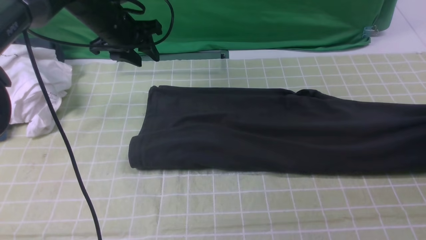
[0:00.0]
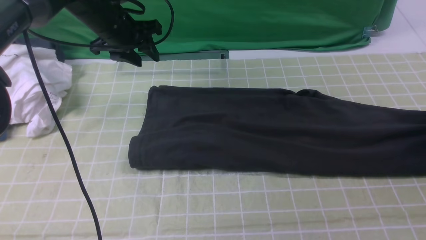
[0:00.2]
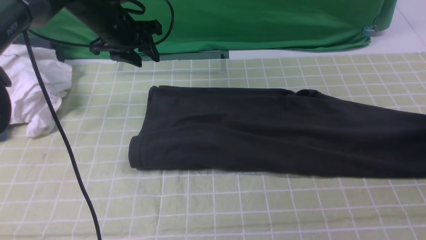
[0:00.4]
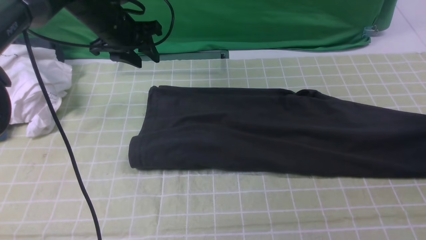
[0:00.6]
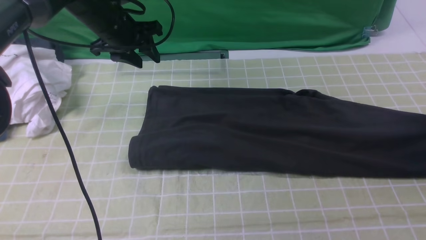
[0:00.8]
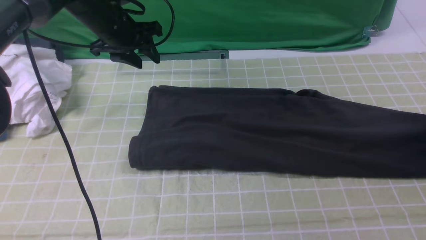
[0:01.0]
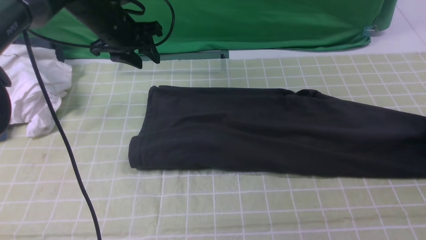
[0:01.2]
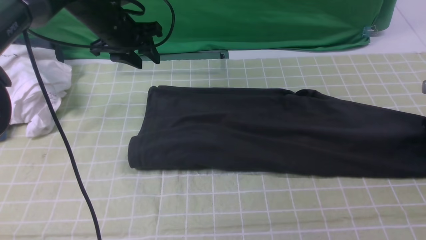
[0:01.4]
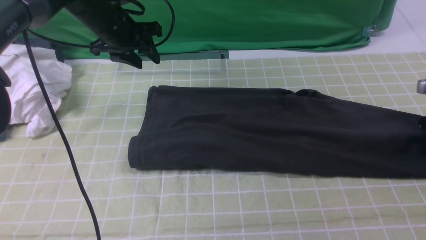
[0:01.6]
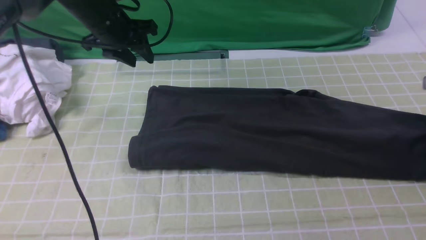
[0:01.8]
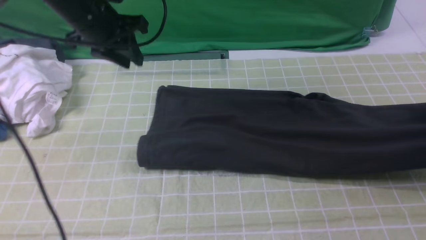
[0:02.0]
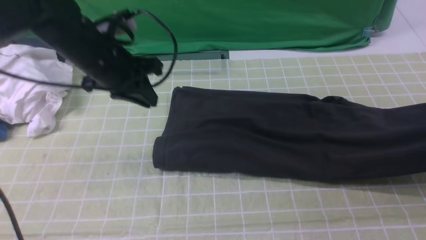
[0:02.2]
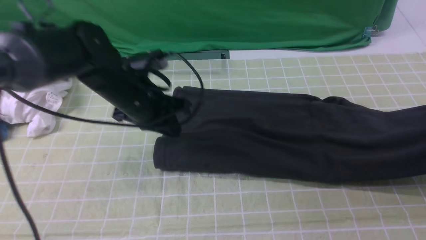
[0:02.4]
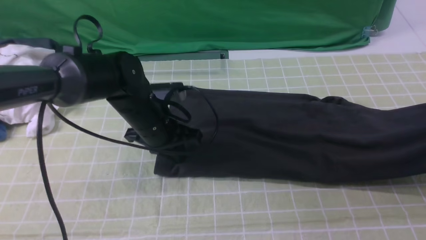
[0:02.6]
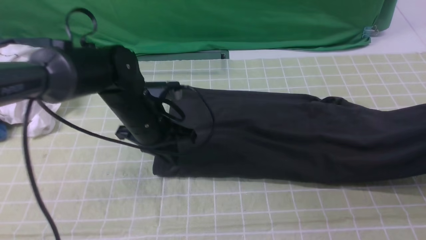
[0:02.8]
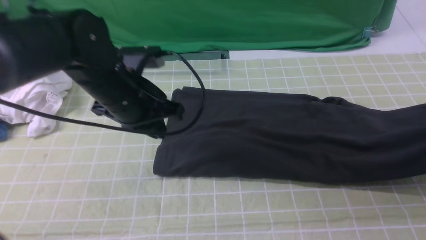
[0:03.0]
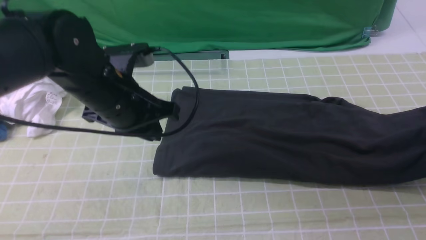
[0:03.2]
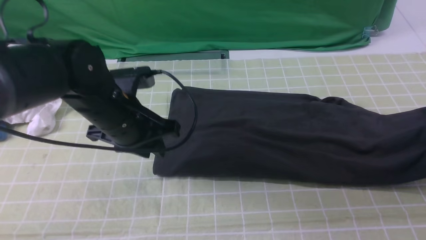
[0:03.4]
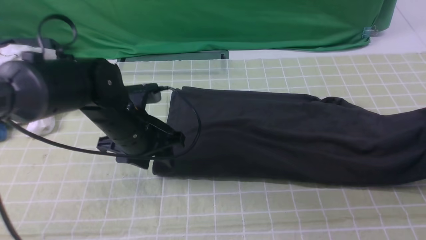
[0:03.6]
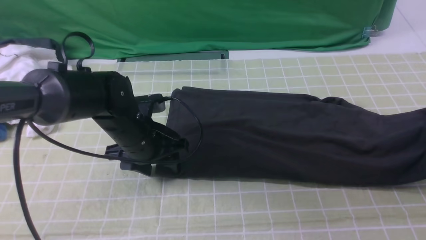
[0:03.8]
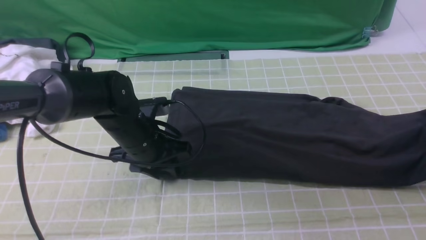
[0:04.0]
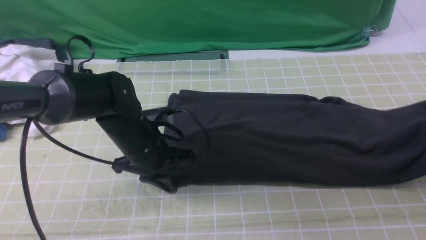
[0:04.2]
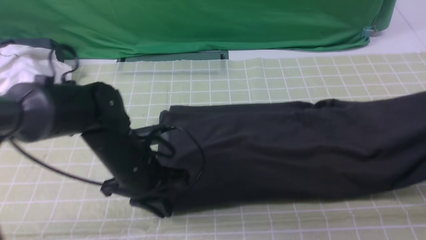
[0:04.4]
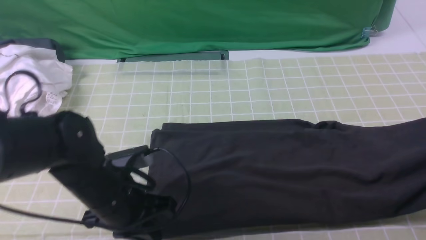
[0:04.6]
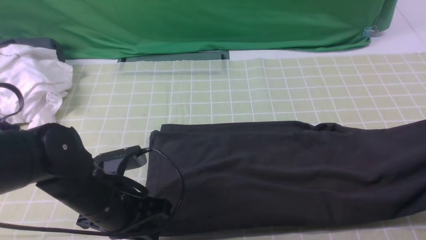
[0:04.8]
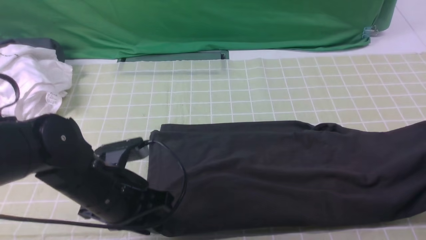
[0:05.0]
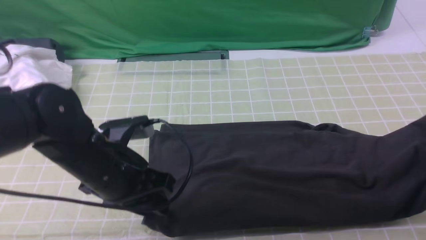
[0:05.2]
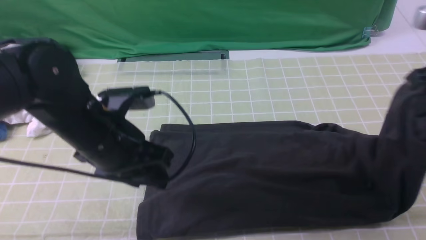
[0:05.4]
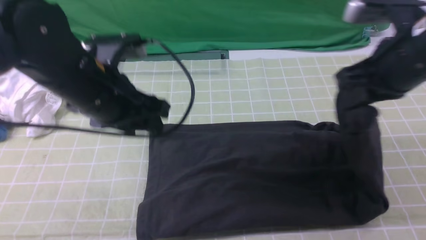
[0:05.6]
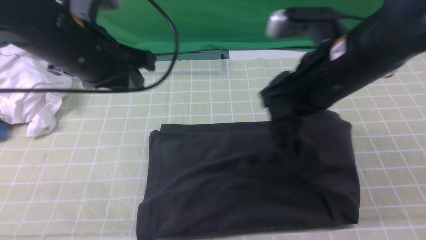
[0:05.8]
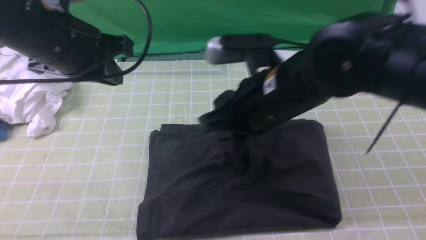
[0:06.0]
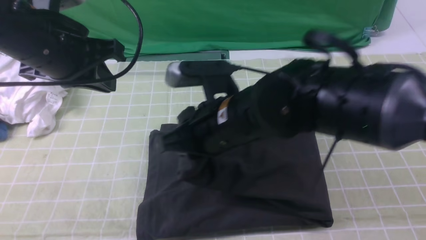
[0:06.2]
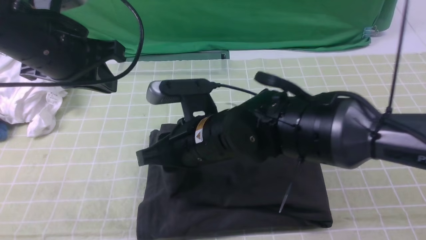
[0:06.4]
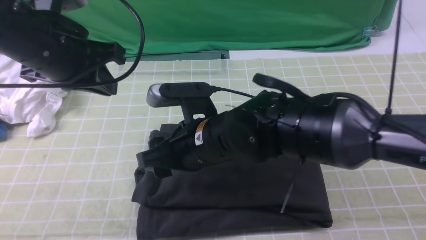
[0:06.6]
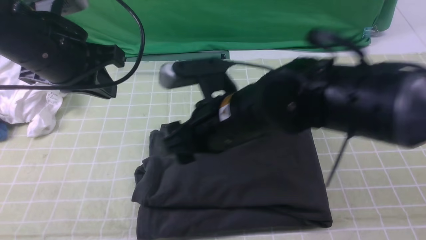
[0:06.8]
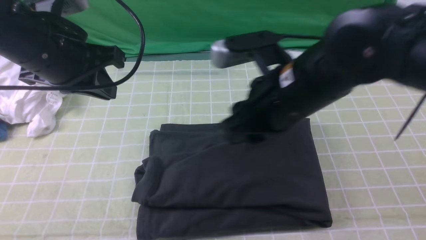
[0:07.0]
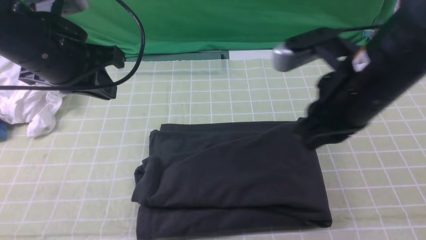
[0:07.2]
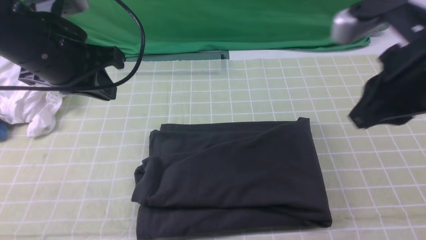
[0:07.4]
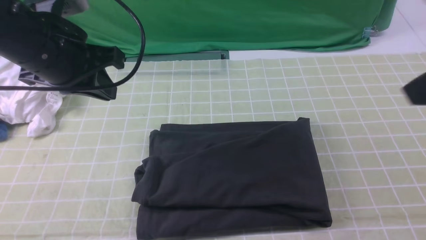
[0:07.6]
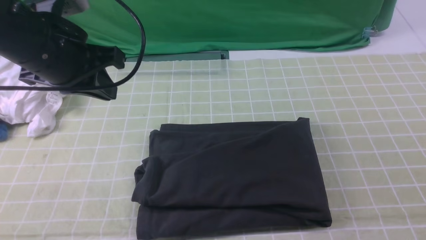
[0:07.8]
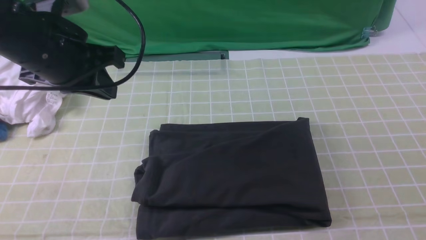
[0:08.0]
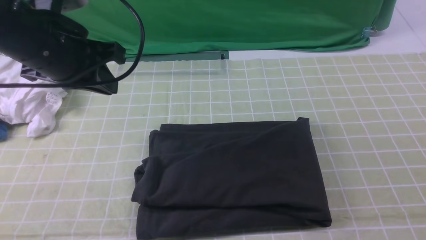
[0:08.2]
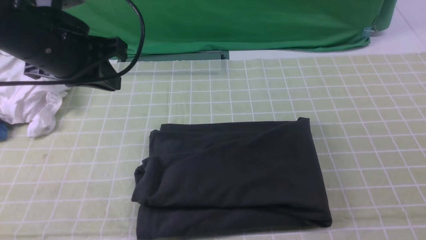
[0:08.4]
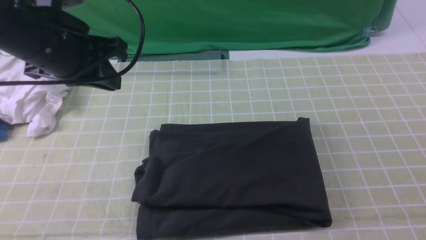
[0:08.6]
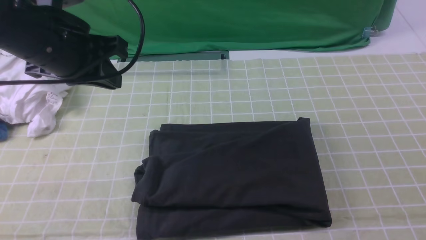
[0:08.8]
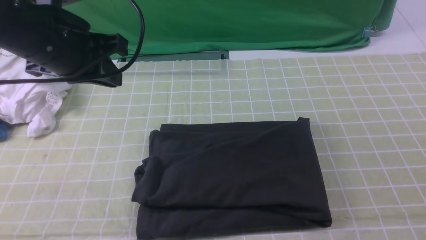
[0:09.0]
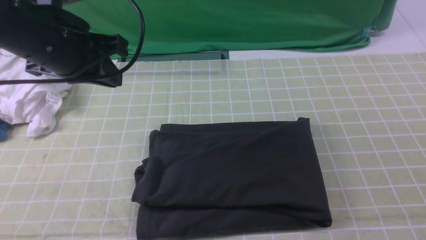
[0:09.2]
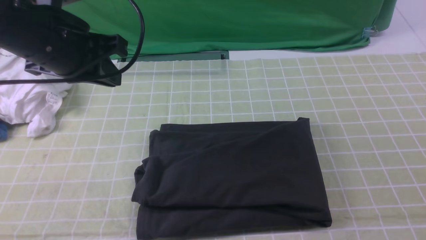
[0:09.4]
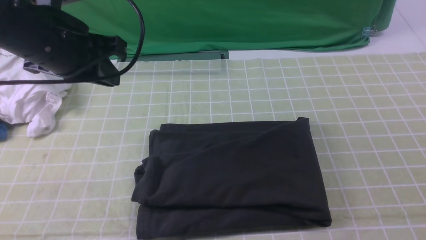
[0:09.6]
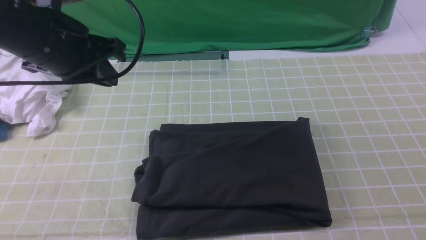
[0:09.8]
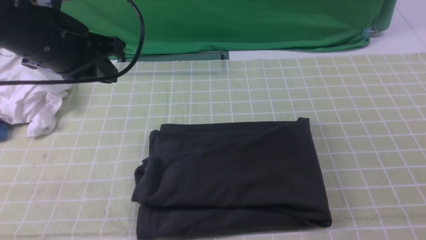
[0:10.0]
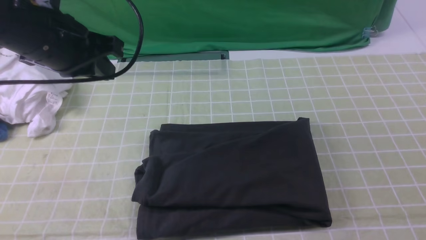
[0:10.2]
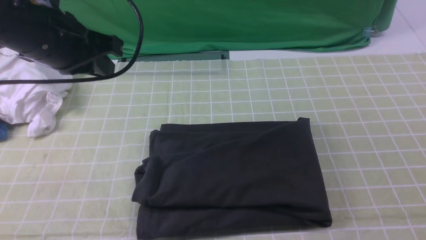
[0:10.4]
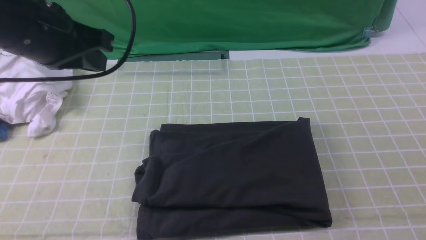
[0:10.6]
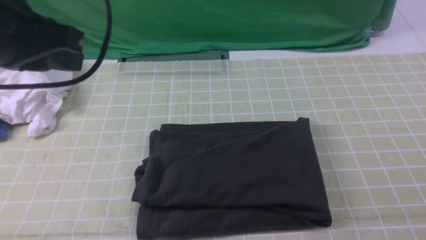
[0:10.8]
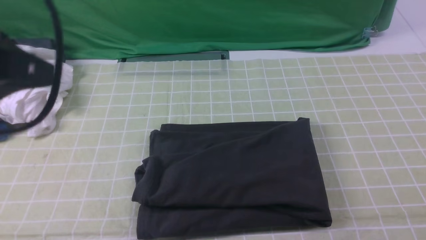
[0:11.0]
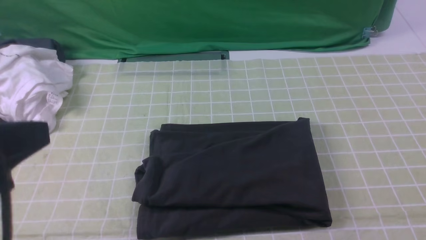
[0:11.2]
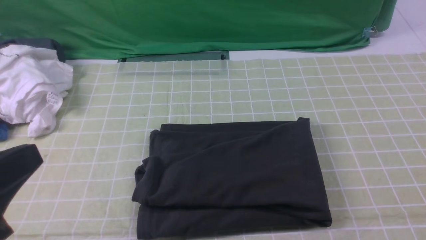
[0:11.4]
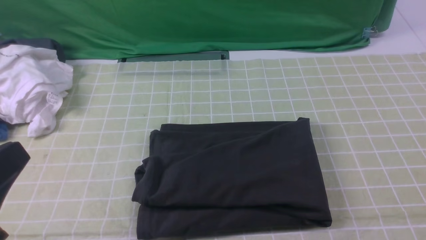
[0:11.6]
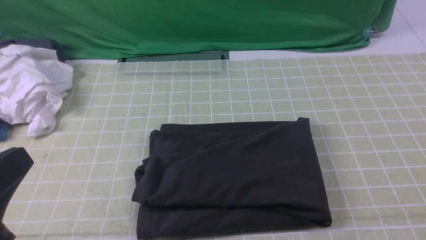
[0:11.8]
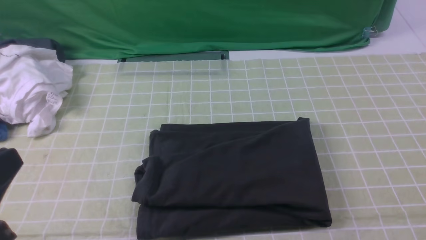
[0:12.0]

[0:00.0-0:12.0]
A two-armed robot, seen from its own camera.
Step, 1.8 to 6.6 s: use the right arm to drag the right edge of the fabric to the left and folds it over the left edge.
0.0 to 1.6 s: The right gripper shifts roughly 5 cm downward, and opens and closes again.
1.6 to 3.0 s: The left gripper is displaced backward and to the right by approximately 15 cm, and closes its fingers, while the right gripper goes approximately 10 cm upward.
3.0 to 4.4 s: The left gripper goes about 10 cm downward and backward, and opens, then closes again. The right gripper shifts by some 5 cm.
4.4 to 6.0 s: The right gripper moves to the left, roughly 35 cm, while the left gripper shifts approximately 20 cm upward, and opens, then closes once more.
6.0 to 7.6 s: The right gripper is displaced to the right, upward and backward by approximately 25 cm, and opens, then closes once more.
10.4 to 12.0 s: The left gripper goes some 25 cm backward.

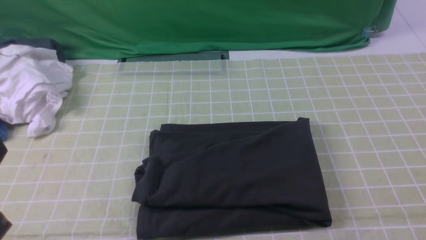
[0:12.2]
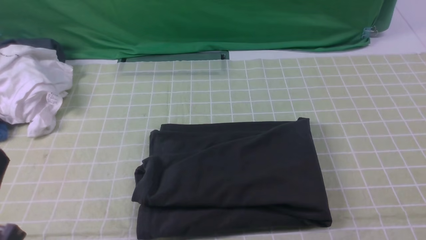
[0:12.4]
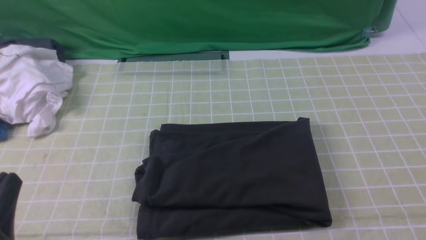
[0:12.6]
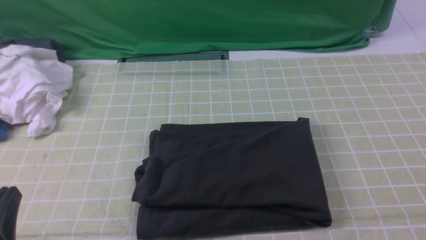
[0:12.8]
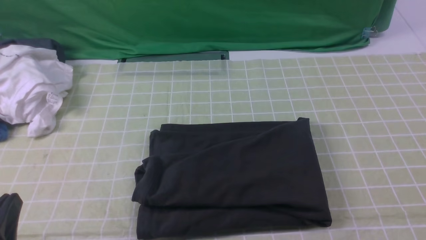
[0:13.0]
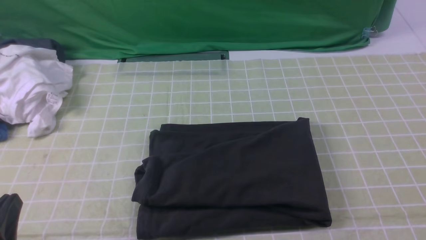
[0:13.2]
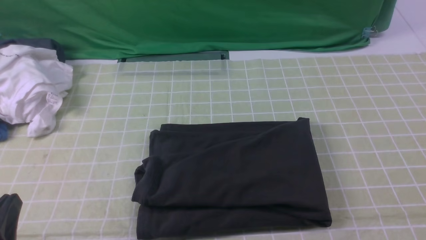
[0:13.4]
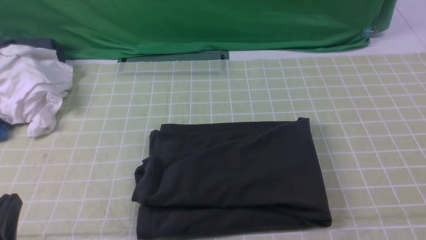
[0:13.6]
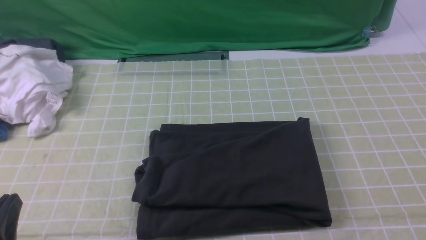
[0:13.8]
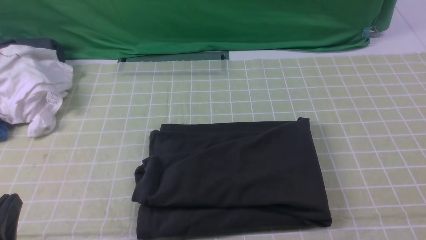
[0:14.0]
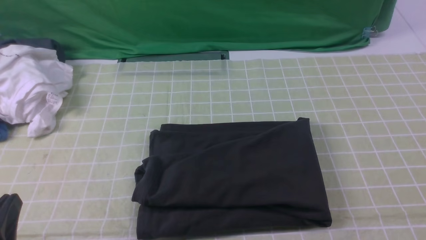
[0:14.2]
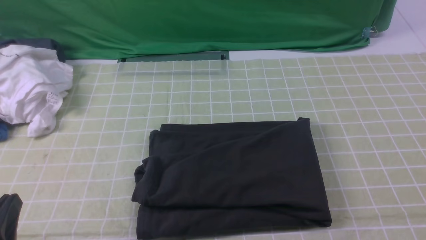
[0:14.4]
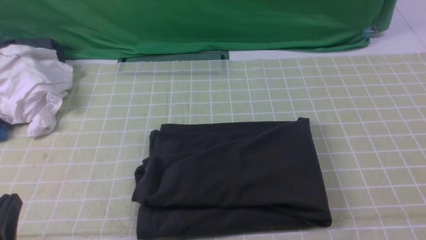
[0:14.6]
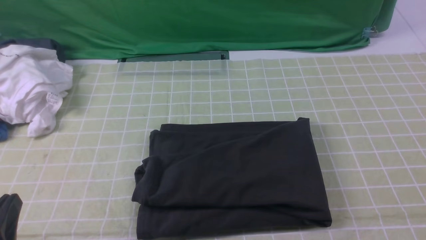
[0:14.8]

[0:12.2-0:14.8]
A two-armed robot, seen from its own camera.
12.2 to 13.4 s: The left gripper moves downward, about 10 cm.
13.4 to 14.8 s: Both grippers stay about where they are.

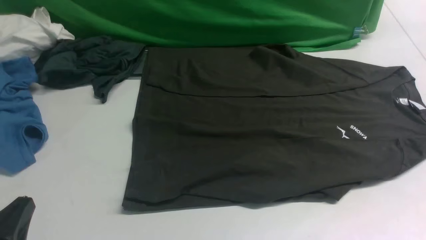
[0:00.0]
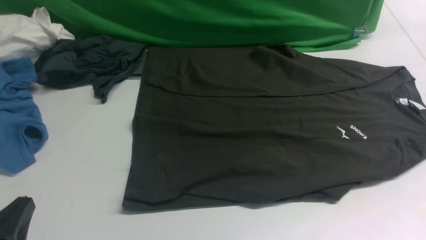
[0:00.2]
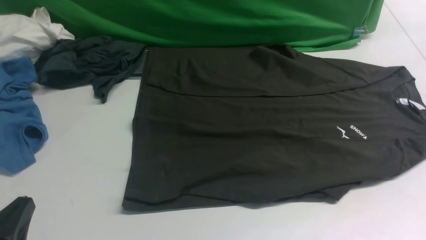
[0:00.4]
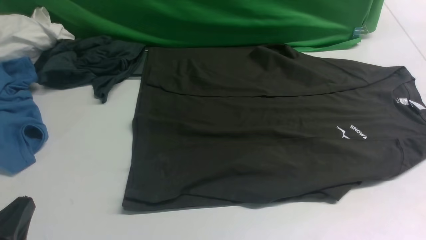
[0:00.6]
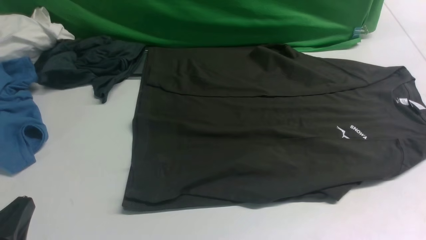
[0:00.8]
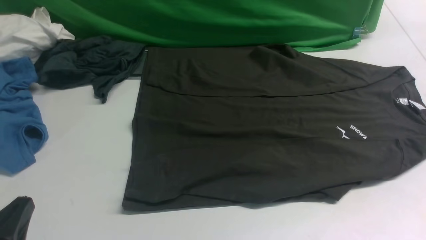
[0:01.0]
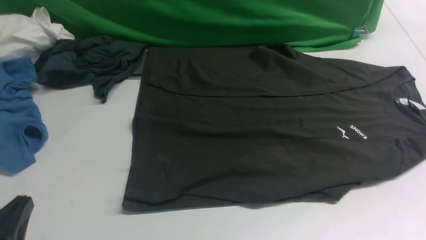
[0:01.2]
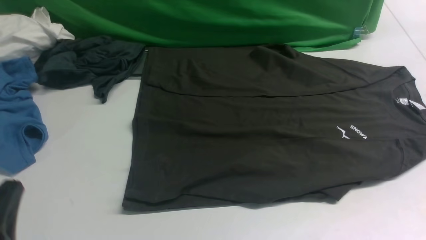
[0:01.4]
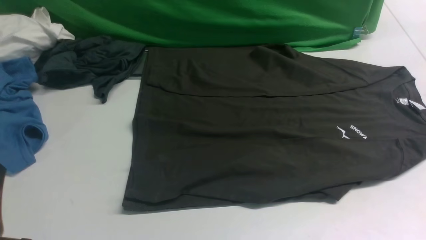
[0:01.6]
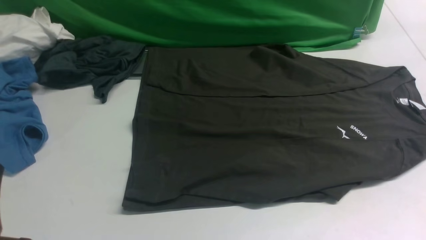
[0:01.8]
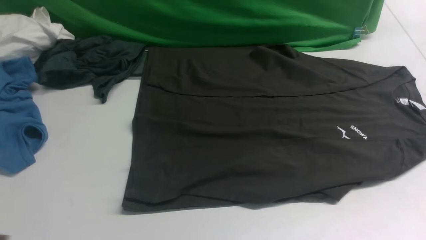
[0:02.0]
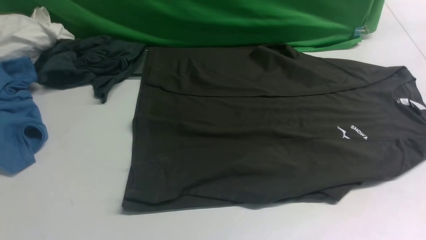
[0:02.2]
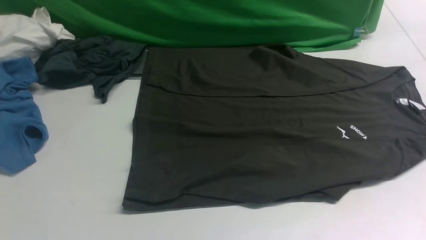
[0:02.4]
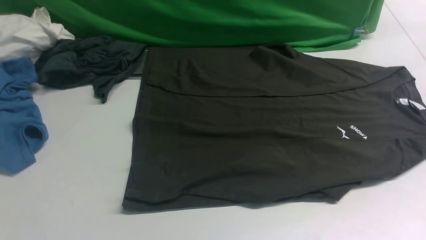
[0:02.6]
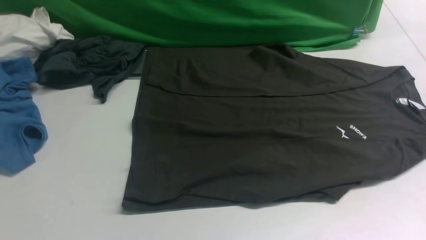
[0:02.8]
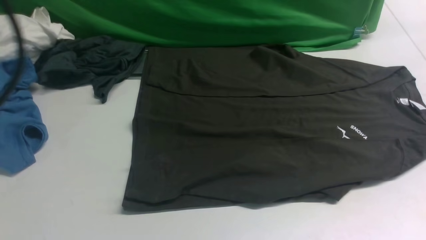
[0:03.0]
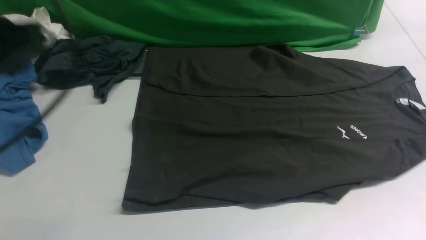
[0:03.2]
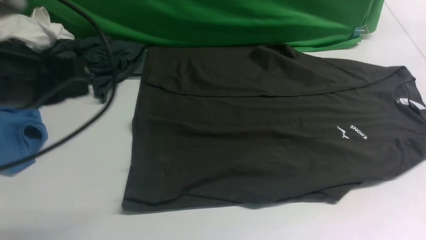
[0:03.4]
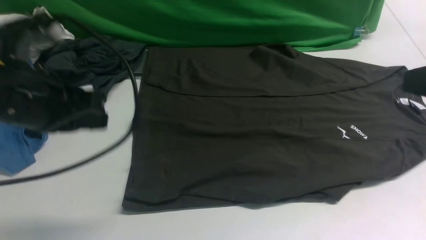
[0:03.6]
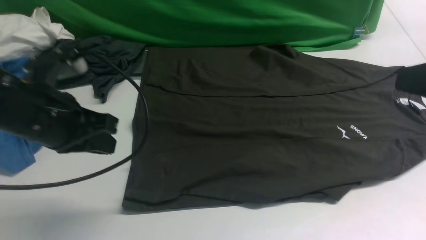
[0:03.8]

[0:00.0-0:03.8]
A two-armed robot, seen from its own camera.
0.0 to 1.2 s: Neither gripper changes place.
1.2 to 2.6 s: The left gripper moves upward, about 25 cm.
2.6 to 3.8 s: The left gripper moves forward and downward, some 25 cm. The right gripper heads forward, downward and to the left, covering roughly 15 cm.
